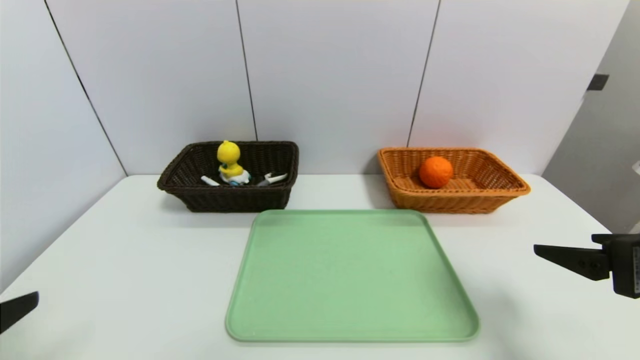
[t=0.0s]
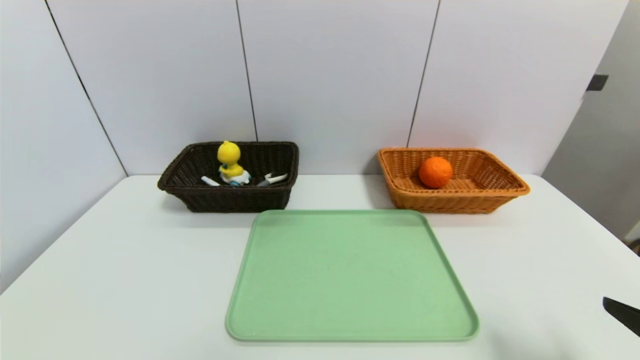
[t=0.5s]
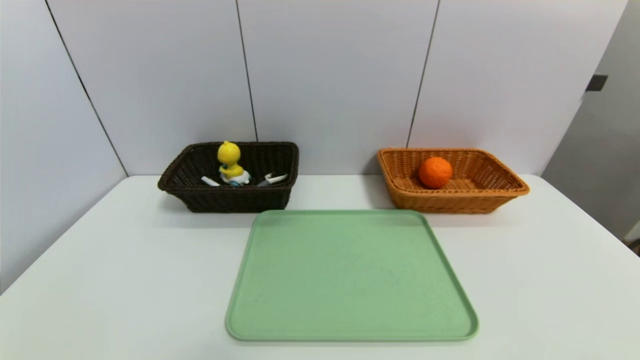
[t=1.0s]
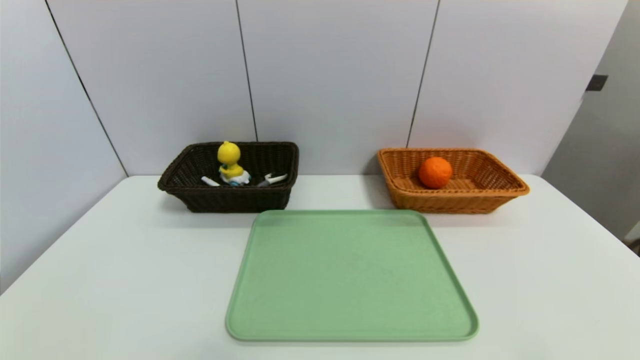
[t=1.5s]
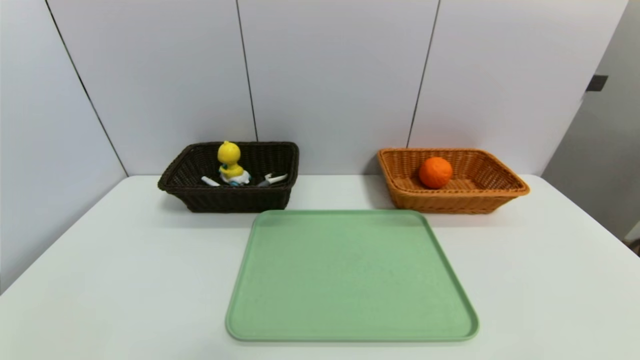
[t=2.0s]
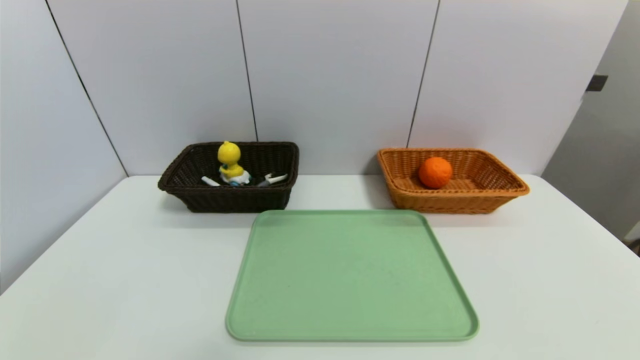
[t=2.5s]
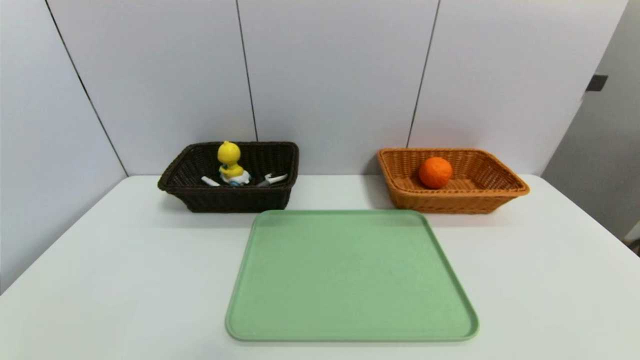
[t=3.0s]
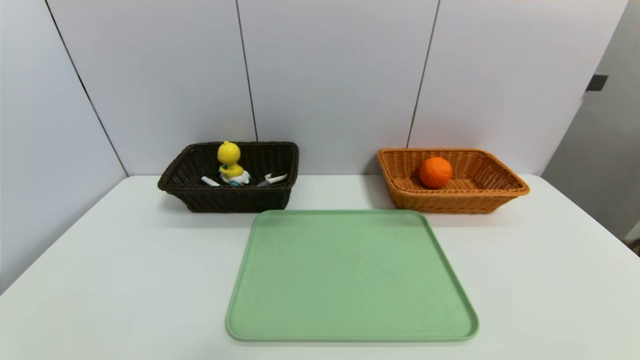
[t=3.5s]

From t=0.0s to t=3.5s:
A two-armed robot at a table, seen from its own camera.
Task of the whole recording: place the food in the right basket with the right gripper, and place the non food items in the left basket with the left gripper.
From t=0.0s to t=2.0s: Both grippers move backward and downward, some 15 cm.
